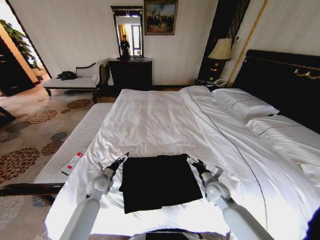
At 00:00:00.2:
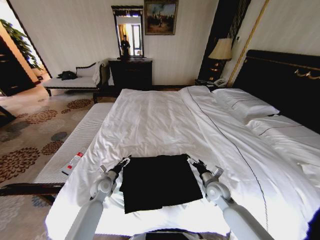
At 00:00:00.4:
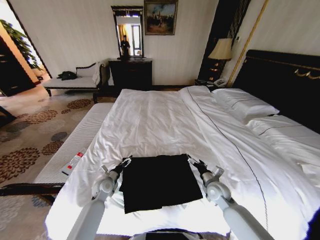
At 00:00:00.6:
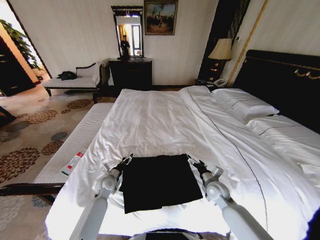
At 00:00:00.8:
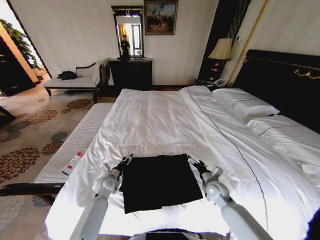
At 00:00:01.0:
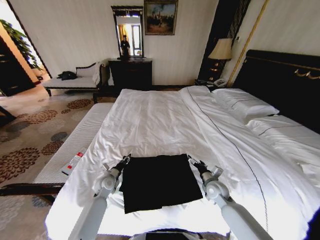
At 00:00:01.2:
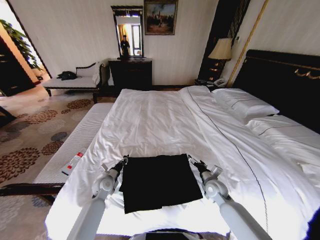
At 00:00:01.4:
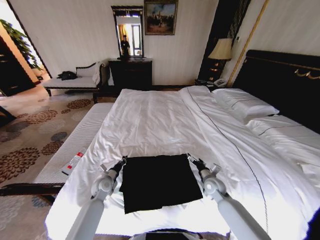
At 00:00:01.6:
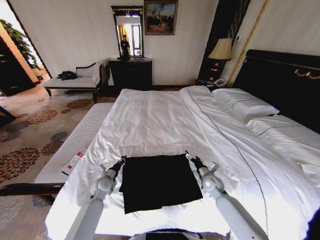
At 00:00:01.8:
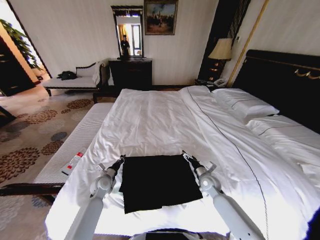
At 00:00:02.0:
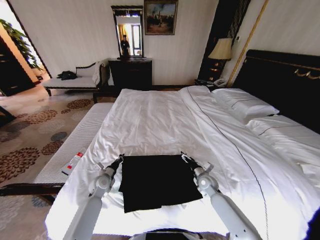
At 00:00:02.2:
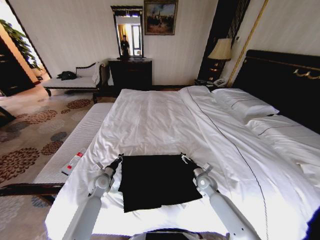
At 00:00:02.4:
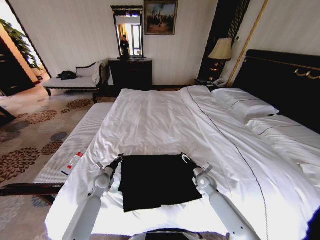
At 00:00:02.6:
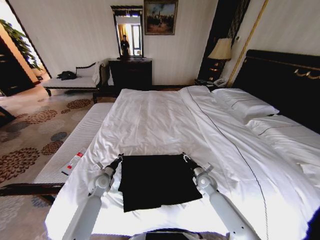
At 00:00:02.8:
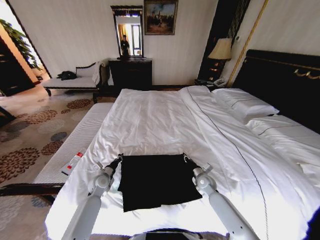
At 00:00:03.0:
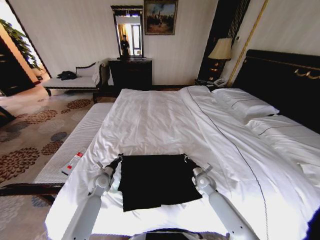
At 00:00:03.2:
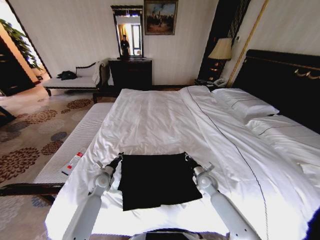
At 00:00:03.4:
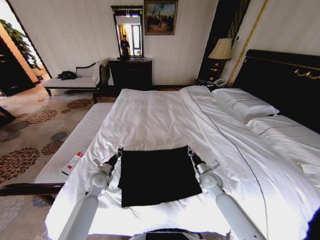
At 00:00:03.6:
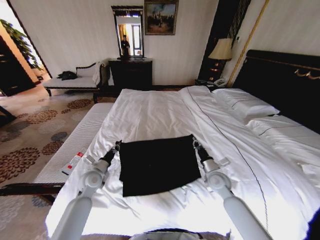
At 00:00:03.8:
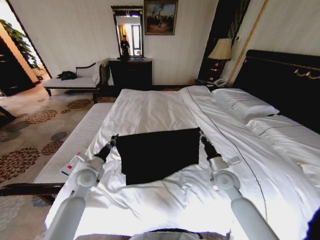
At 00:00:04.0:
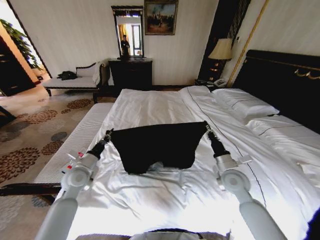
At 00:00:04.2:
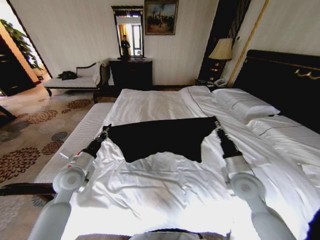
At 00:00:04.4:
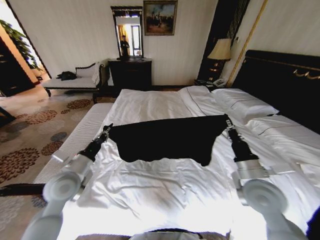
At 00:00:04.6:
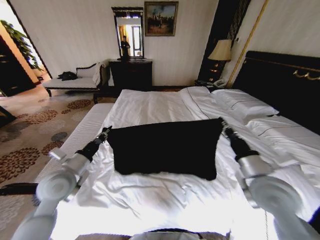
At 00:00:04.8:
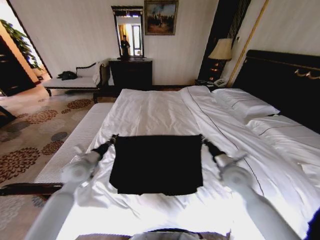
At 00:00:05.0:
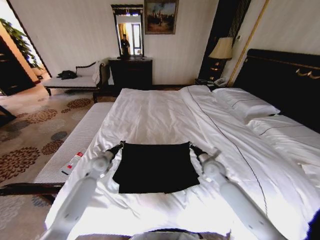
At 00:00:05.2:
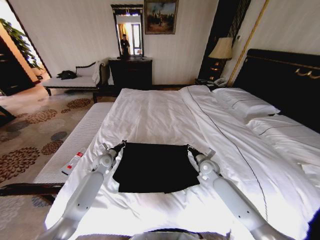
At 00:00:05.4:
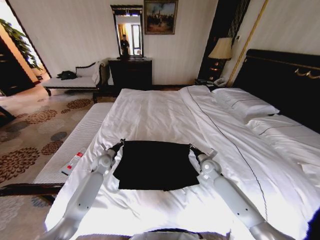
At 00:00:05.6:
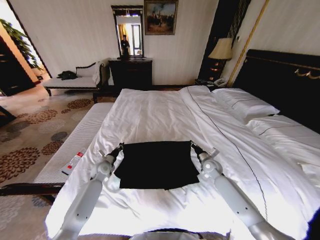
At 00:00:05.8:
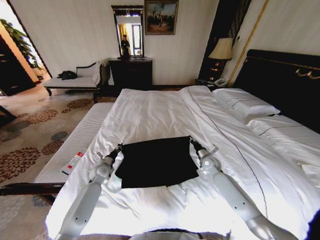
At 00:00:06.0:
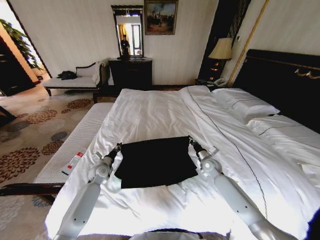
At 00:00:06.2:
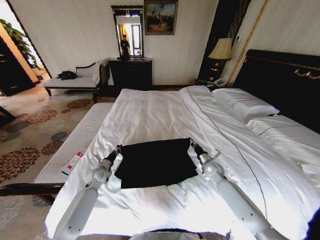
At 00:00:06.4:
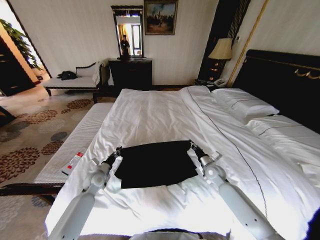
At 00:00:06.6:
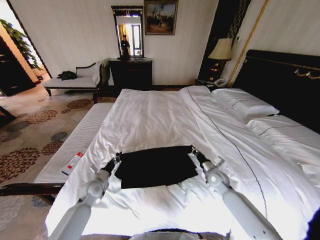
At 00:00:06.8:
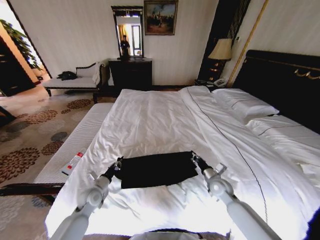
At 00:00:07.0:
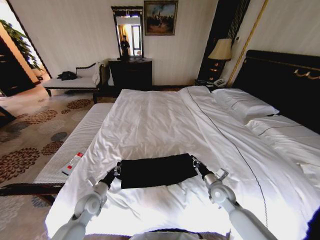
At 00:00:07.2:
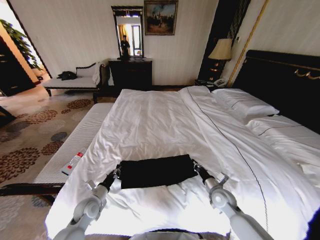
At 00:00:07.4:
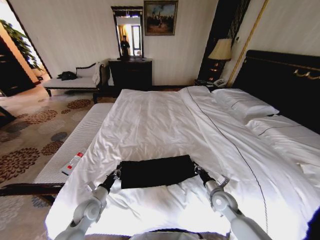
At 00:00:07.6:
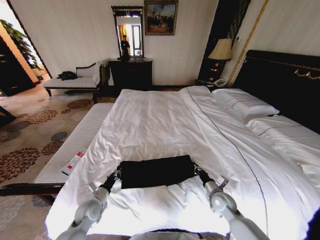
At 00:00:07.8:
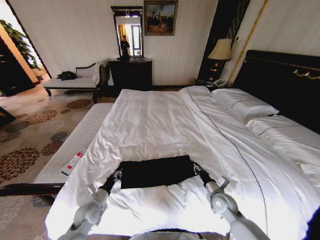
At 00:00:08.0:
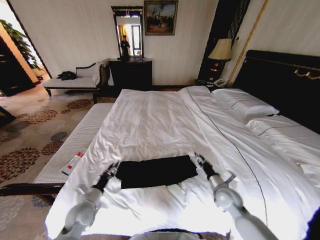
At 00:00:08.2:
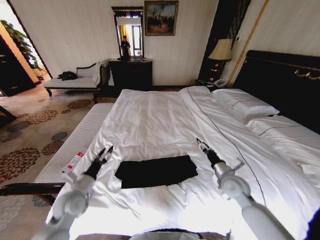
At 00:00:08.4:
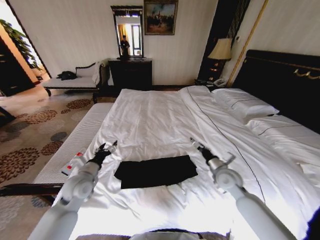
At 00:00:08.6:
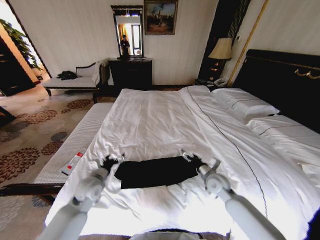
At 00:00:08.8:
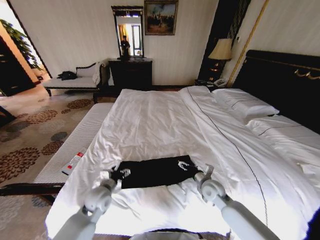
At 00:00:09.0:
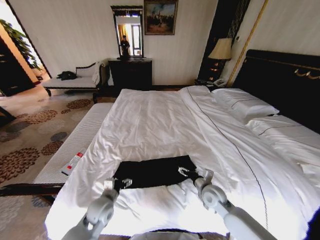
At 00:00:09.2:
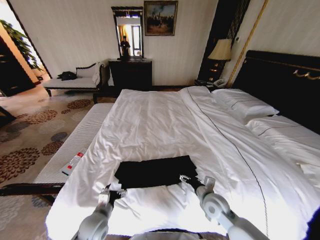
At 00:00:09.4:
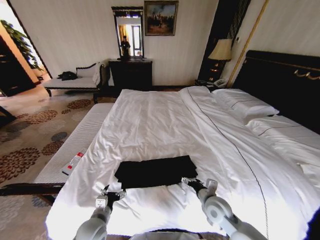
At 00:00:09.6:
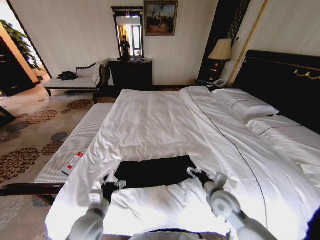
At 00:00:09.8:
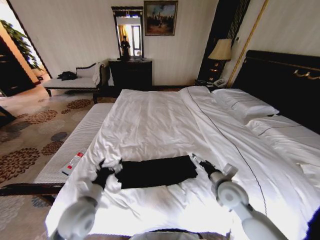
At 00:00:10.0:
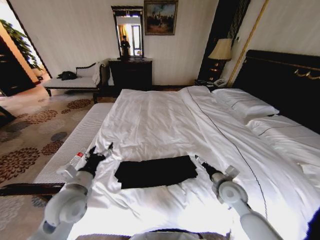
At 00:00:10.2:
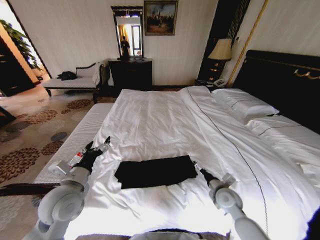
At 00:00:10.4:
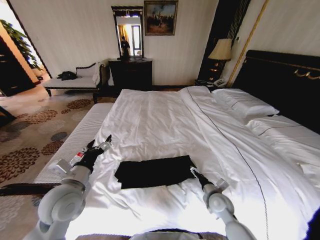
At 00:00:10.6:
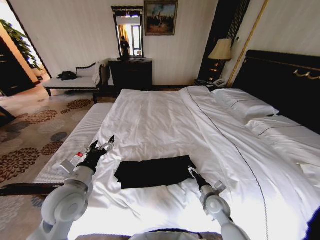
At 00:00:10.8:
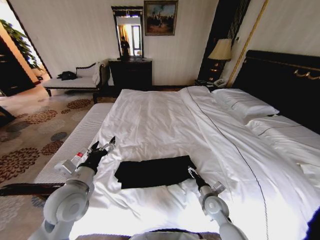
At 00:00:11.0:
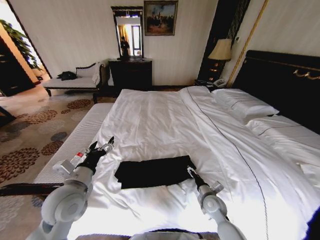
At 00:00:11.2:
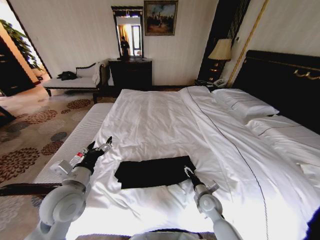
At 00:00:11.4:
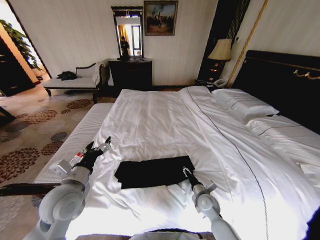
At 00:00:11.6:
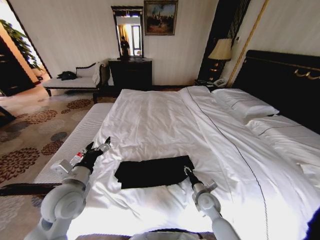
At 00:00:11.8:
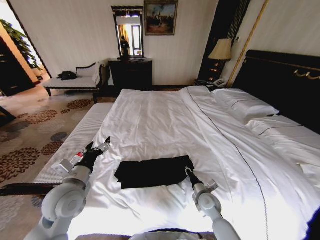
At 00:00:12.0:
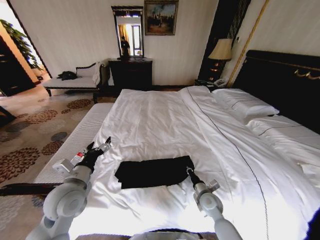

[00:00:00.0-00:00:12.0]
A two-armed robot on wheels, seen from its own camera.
Task of the whole recording: Fold the clothes on the bed.
00:00:00.0 to 00:00:01.6: The left gripper closes. Meanwhile the right gripper ends up about 5 cm from where it was.
00:00:01.6 to 00:00:03.0: The right gripper closes.
00:00:03.0 to 00:00:04.4: Both grippers travel together upward and backward, roughly 25 cm.
00:00:04.4 to 00:00:06.0: The left gripper shifts roughly 25 cm downward and forward, while the right gripper moves forward and downward, about 25 cm.
00:00:06.0 to 00:00:07.6: The grippers both shift backward by some 15 cm.
00:00:07.6 to 00:00:09.0: The right gripper travels to the left by about 5 cm, and opens. Meanwhile the left gripper heads to the right and upward, covering roughly 10 cm, and opens its fingers.
00:00:09.0 to 00:00:10.4: The right gripper goes upward and returns, some 5 cm each way; the left gripper goes about 15 cm upward.
00:00:10.4 to 00:00:12.0: The right gripper closes its fingers.

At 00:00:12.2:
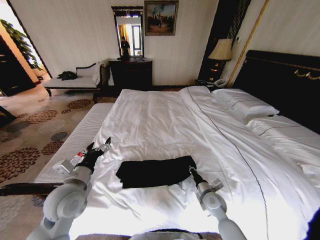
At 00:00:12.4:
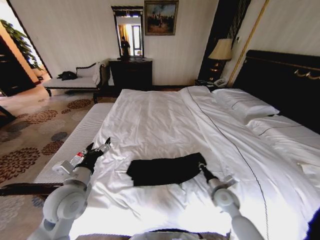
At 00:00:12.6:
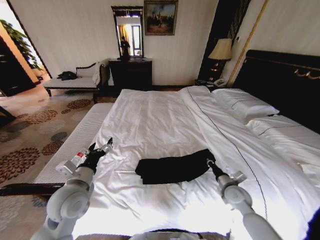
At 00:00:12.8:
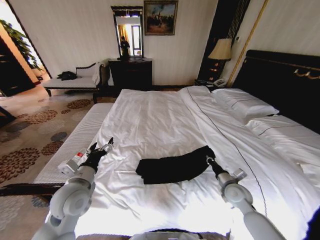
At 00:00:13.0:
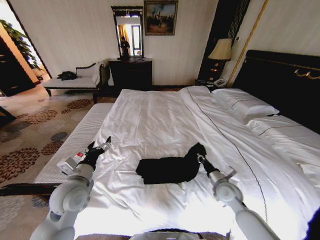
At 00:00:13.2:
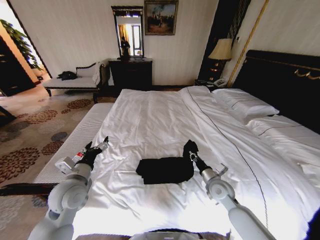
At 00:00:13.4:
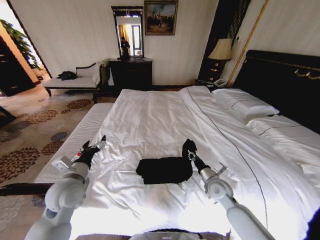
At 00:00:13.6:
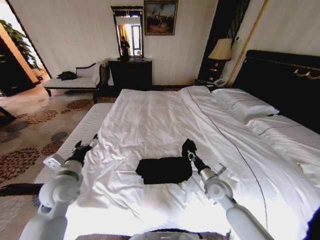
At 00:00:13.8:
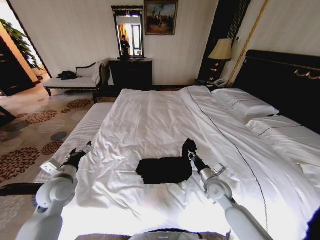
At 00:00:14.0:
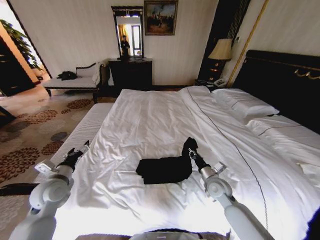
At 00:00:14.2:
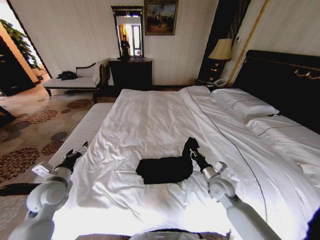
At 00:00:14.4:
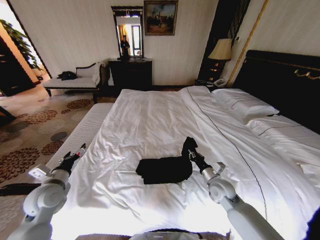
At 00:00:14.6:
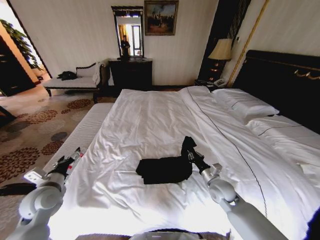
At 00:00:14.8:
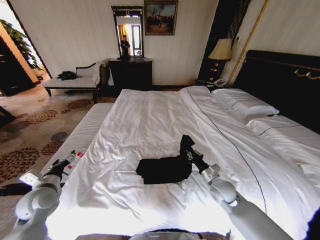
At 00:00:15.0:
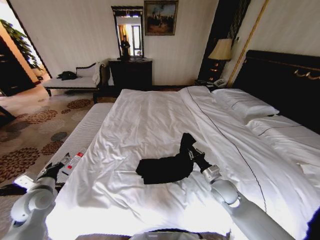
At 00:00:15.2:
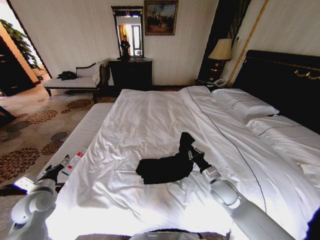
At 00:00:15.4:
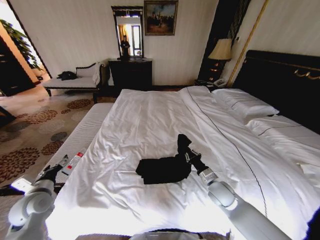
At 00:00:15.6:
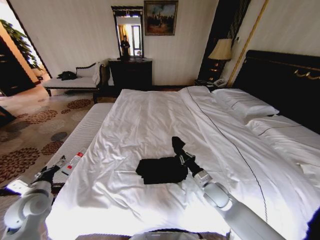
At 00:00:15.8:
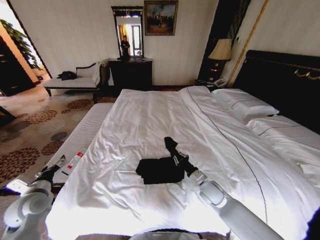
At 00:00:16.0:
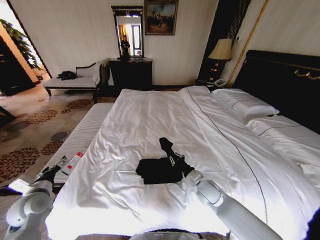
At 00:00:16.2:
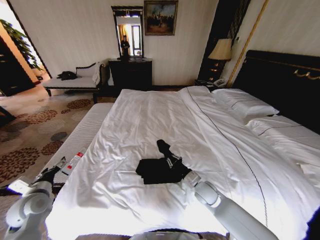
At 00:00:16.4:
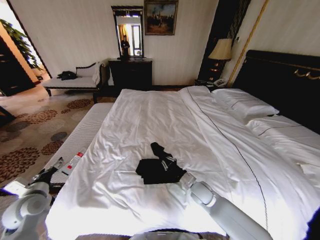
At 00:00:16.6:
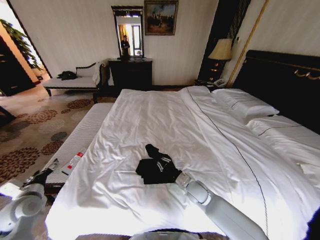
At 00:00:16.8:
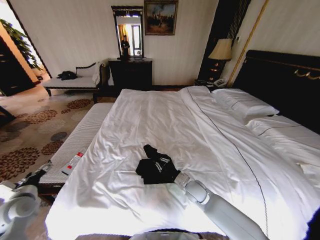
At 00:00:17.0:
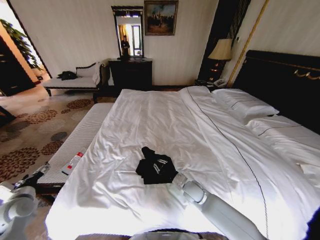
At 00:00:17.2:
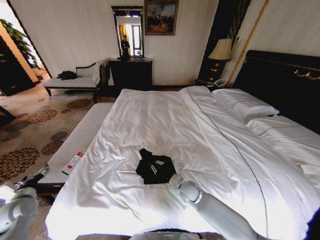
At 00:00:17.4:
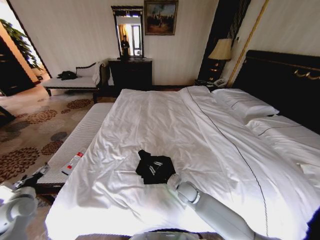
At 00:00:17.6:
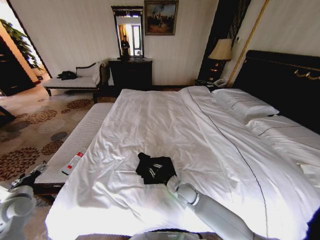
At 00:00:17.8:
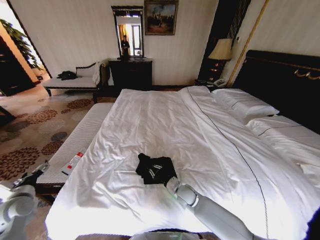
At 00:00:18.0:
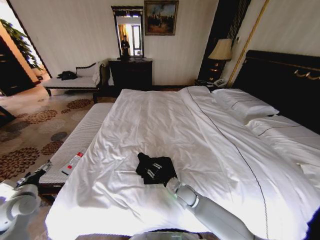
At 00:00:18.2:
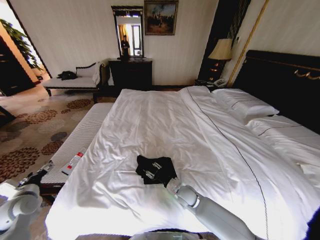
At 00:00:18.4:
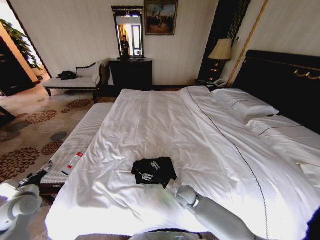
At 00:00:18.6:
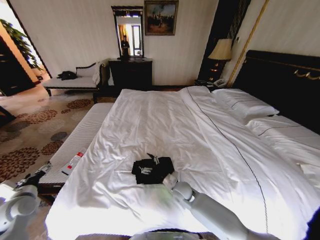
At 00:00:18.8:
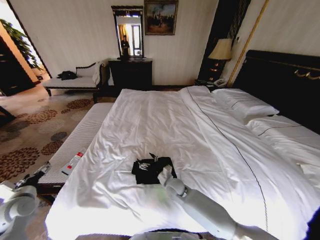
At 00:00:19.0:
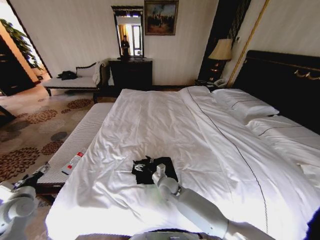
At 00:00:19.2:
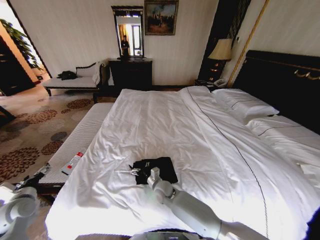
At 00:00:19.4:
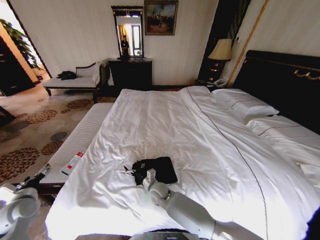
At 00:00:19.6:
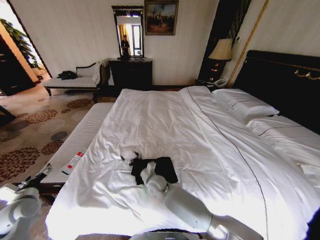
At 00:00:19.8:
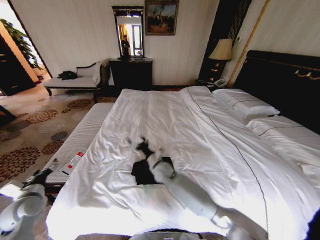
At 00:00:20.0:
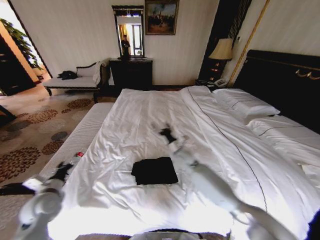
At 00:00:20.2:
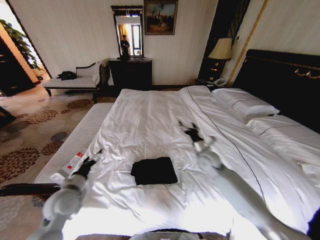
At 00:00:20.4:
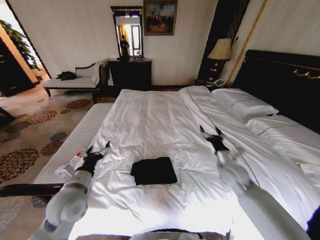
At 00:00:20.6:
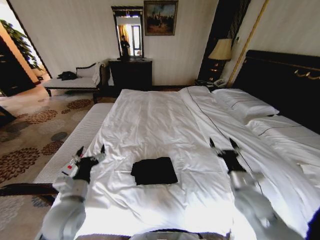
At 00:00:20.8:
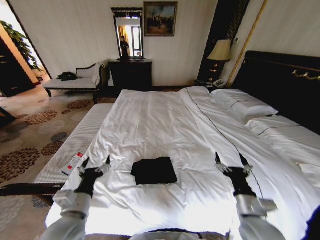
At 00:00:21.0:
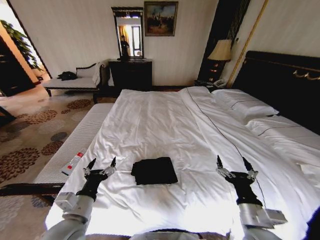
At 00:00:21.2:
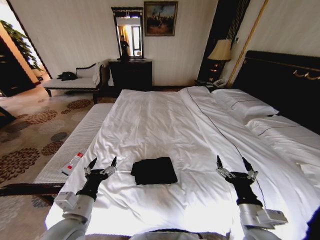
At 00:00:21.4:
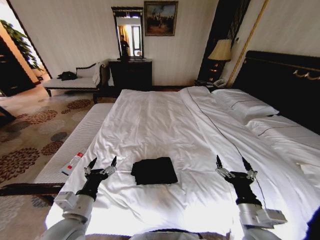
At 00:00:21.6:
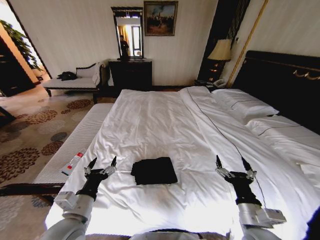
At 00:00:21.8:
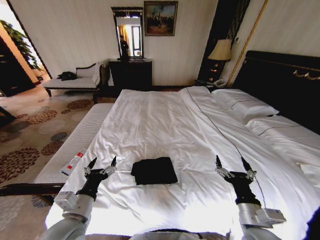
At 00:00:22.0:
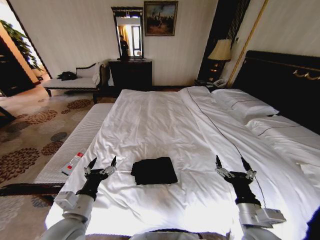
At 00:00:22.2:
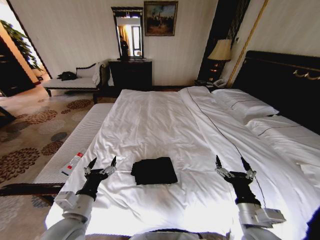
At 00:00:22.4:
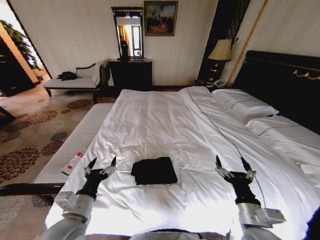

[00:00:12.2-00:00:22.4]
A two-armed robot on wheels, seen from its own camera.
Task of the whole recording: Fold the clothes on the bed.
00:00:12.2 to 00:00:13.6: The left gripper moves roughly 5 cm. Meanwhile the right gripper is displaced upward by about 5 cm, and moves roughly 10 cm to the right and comes back.
00:00:13.6 to 00:00:15.2: The left gripper shifts about 15 cm to the left and downward.
00:00:15.2 to 00:00:16.6: The right gripper is displaced to the left and downward by some 10 cm.
00:00:16.6 to 00:00:18.0: The right gripper changes place by roughly 5 cm.
00:00:18.0 to 00:00:19.4: The right gripper goes approximately 15 cm to the left, and opens its fingers.
00:00:19.4 to 00:00:21.0: The right gripper shifts some 35 cm to the right, backward and upward. The left gripper goes roughly 25 cm to the right.
00:00:21.0 to 00:00:22.4: Both grippers stay put.
